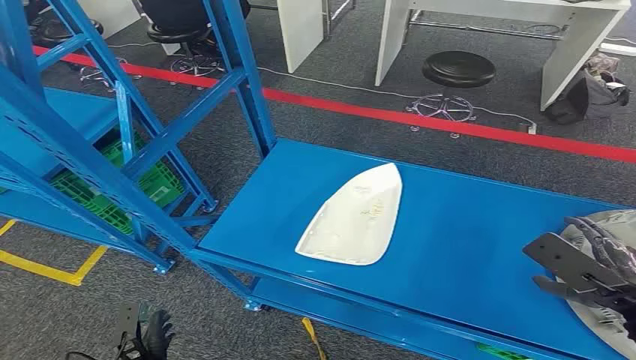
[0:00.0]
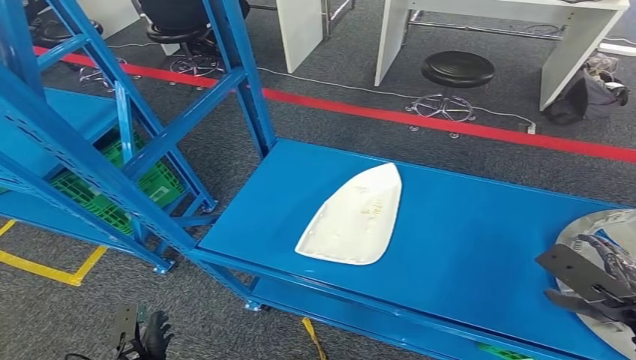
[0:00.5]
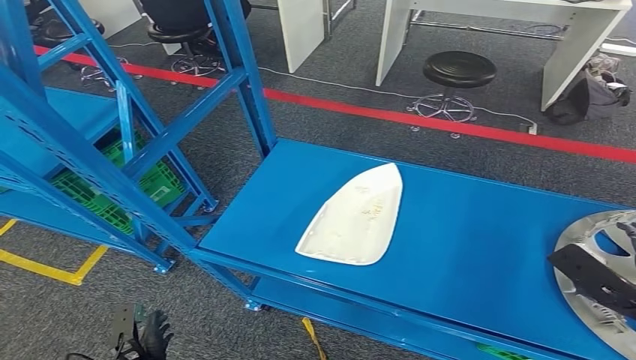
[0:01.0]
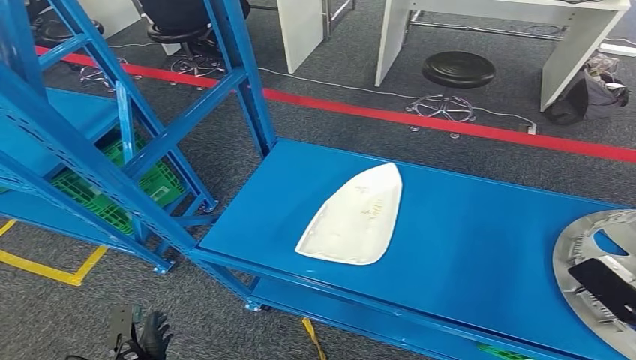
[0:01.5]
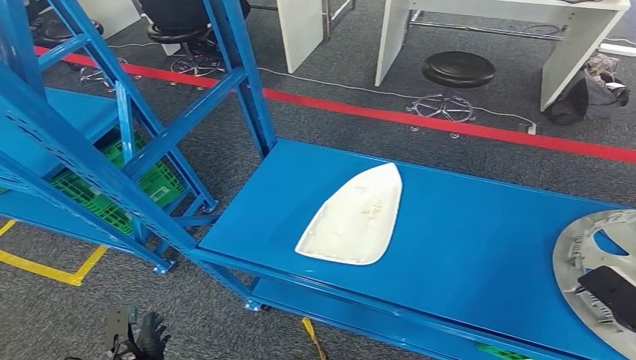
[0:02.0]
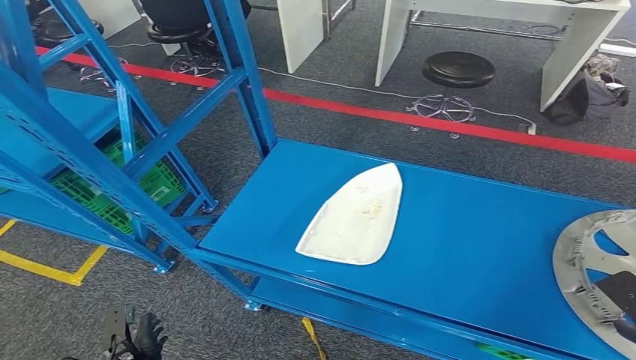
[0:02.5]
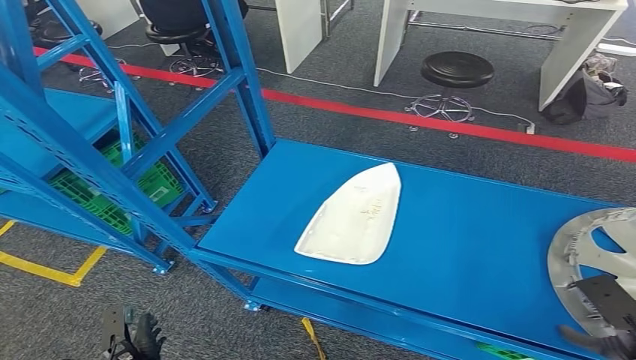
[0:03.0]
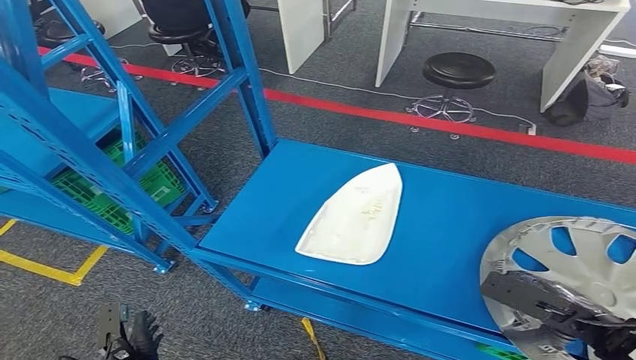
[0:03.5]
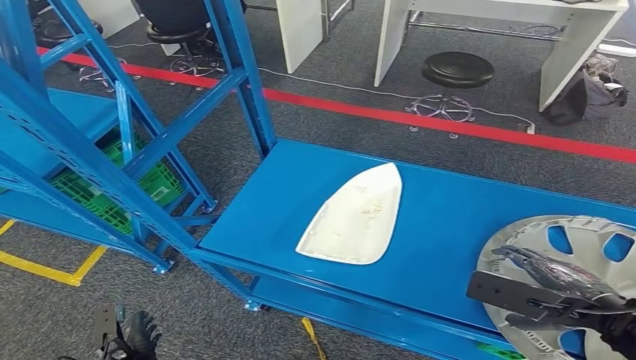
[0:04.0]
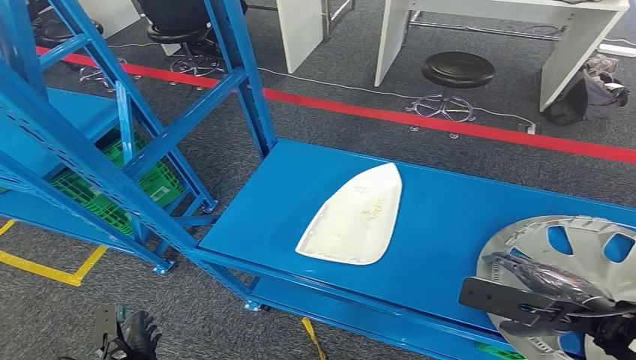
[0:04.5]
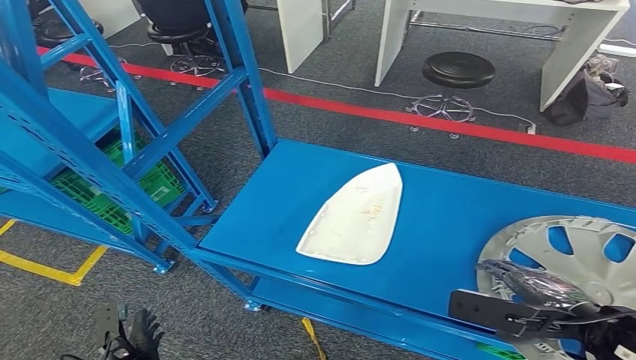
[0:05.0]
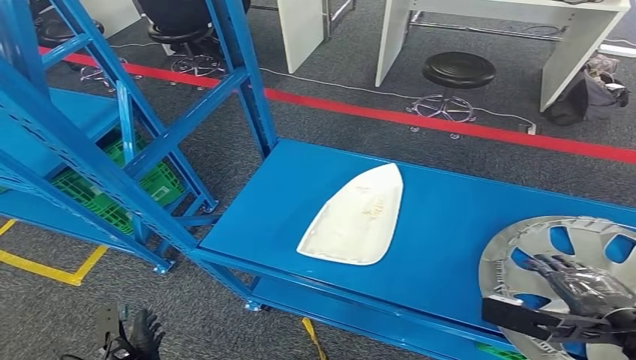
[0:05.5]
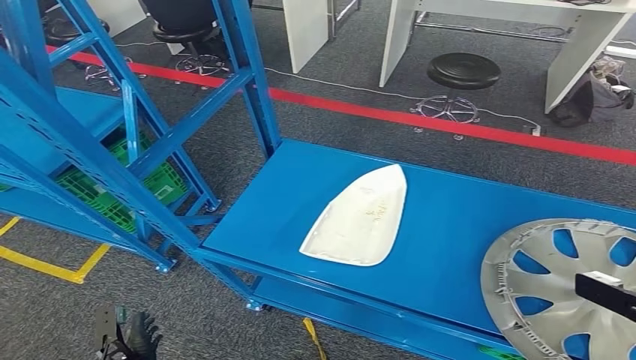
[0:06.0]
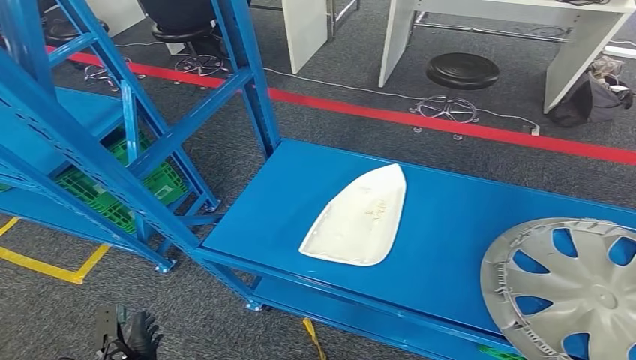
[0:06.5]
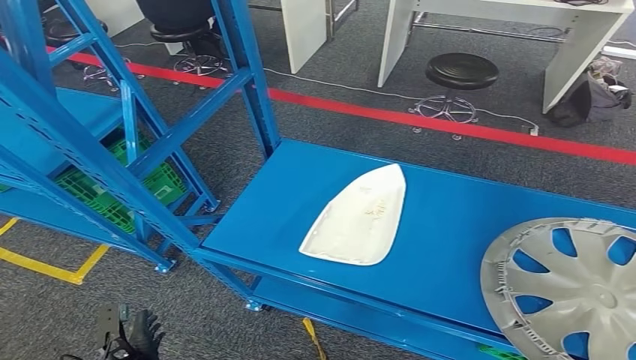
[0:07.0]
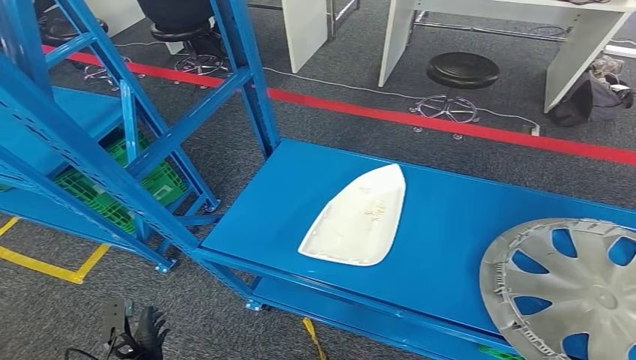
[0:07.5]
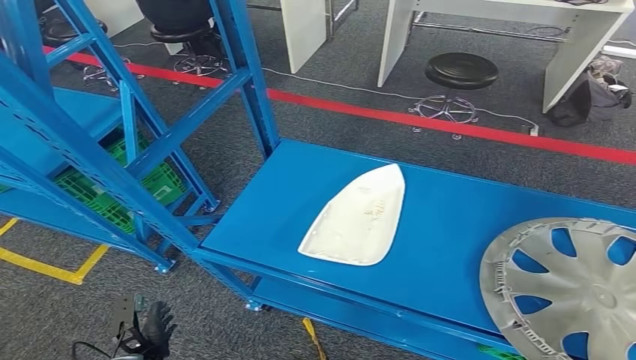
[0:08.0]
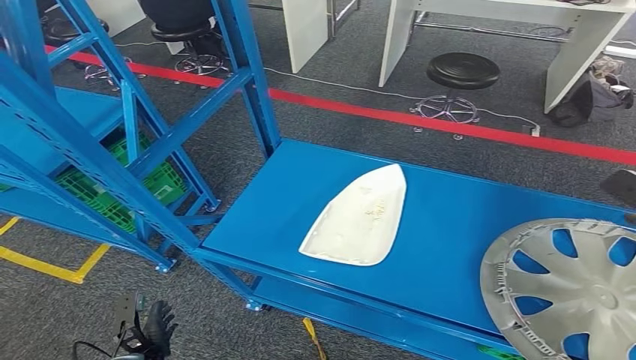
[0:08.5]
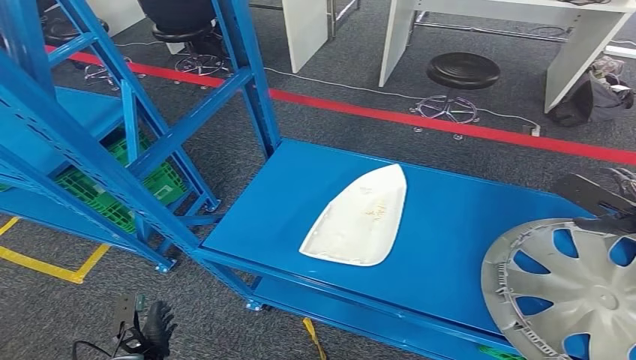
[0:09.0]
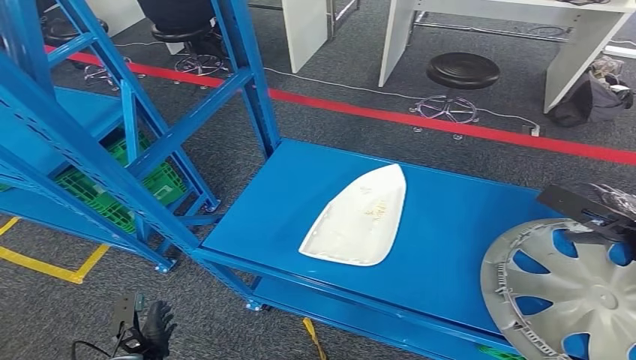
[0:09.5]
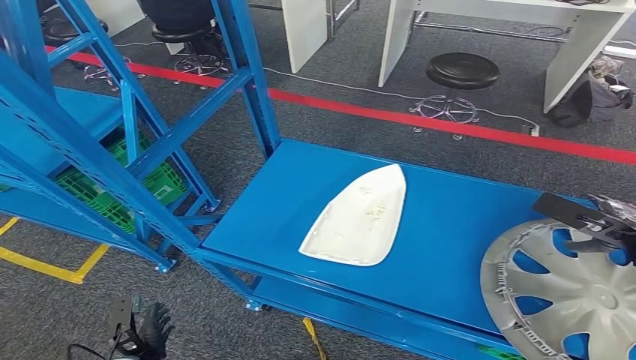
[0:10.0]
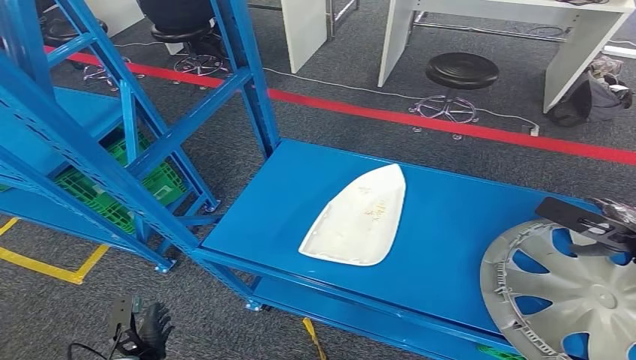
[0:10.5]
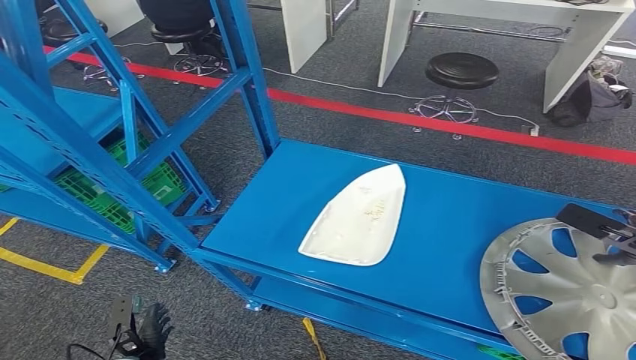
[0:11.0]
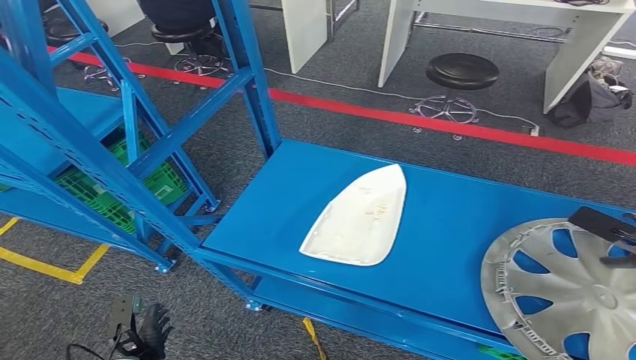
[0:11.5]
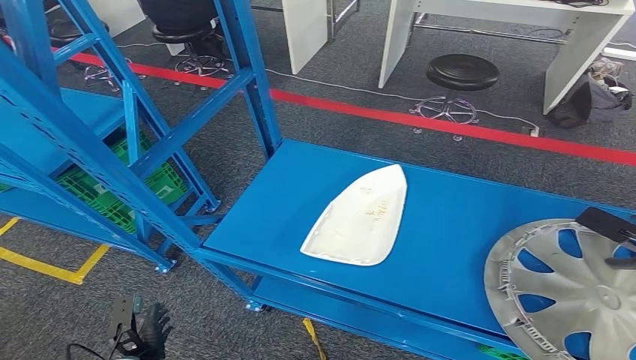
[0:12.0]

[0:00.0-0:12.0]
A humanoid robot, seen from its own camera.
0:02.0 to 0:04.0: The right hand moves to the left, about 5 cm, and reaches approximately 5 cm downward, then returns.
0:04.0 to 0:06.0: The right hand goes some 10 cm to the right.
0:06.0 to 0:08.0: The right hand is displaced forward and to the right by some 15 cm.
0:08.0 to 0:10.0: The right hand is displaced to the left and downward by approximately 15 cm.
0:10.0 to 0:12.0: The right hand goes about 5 cm to the right.

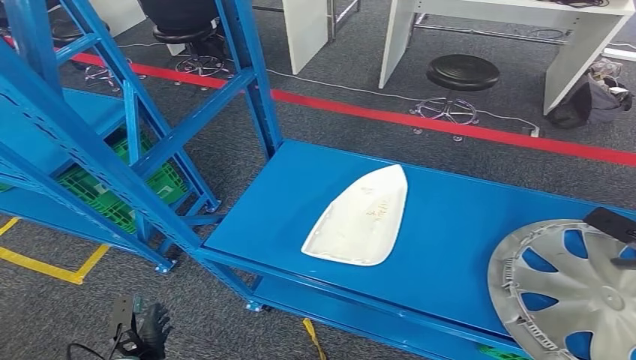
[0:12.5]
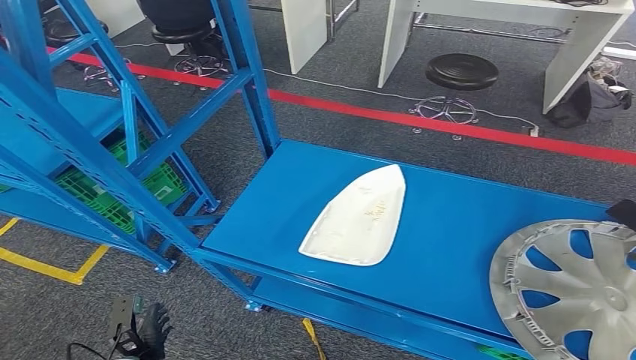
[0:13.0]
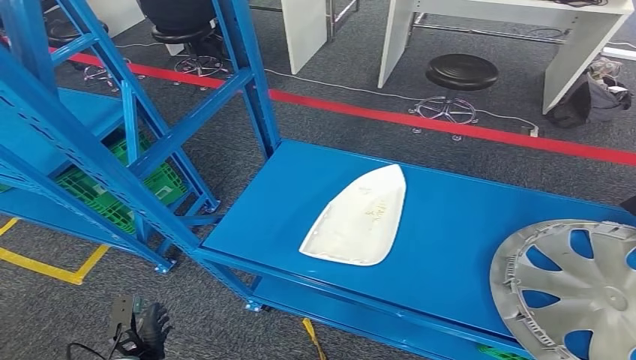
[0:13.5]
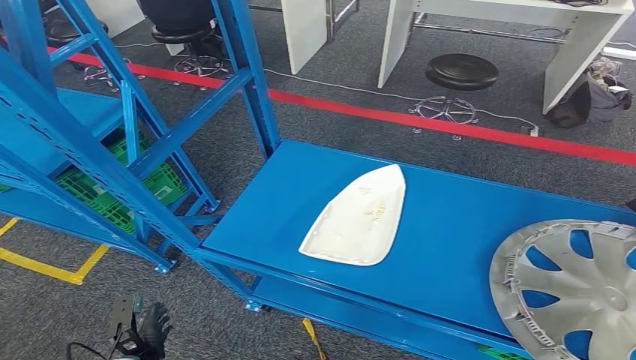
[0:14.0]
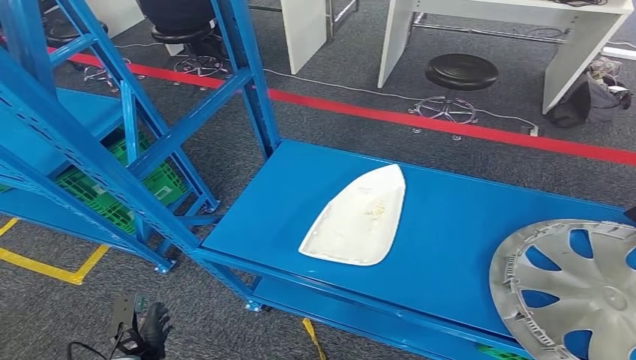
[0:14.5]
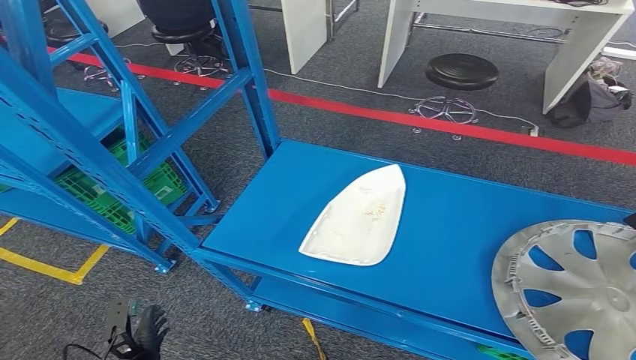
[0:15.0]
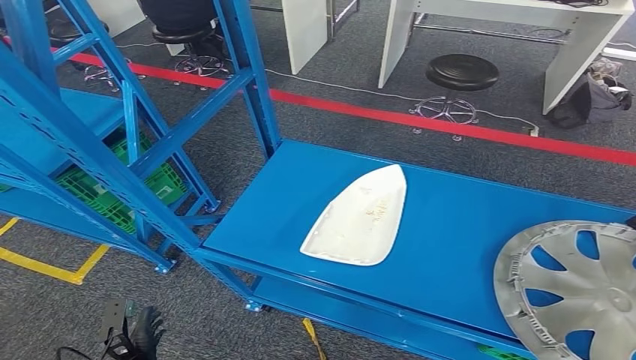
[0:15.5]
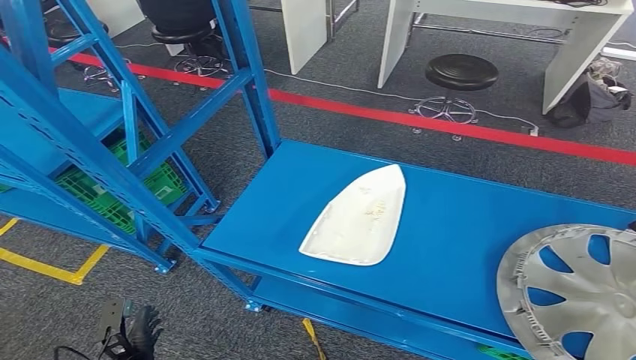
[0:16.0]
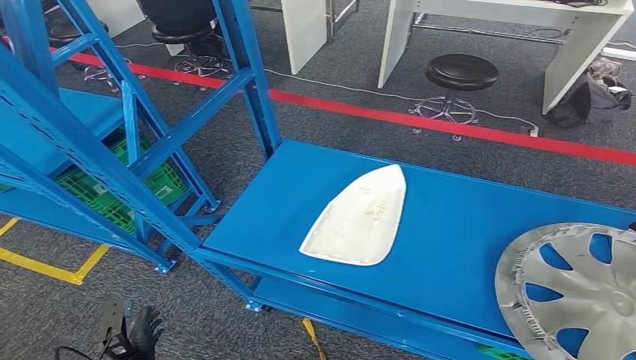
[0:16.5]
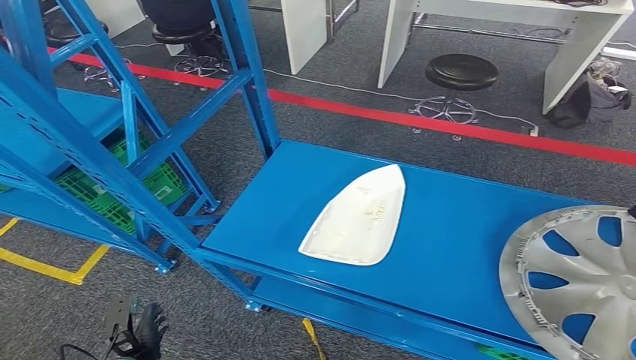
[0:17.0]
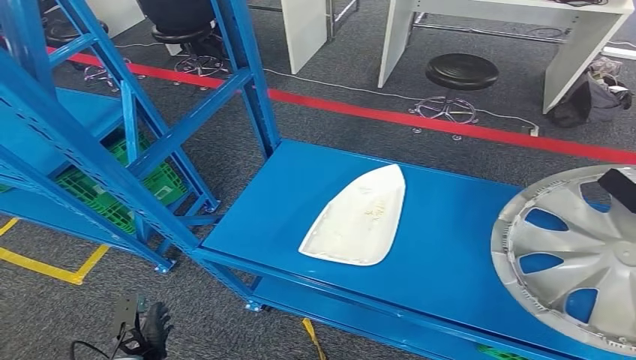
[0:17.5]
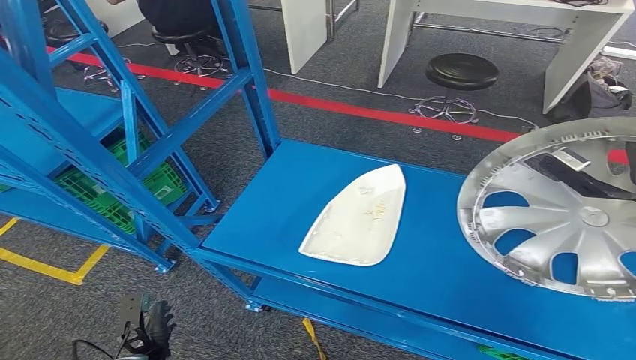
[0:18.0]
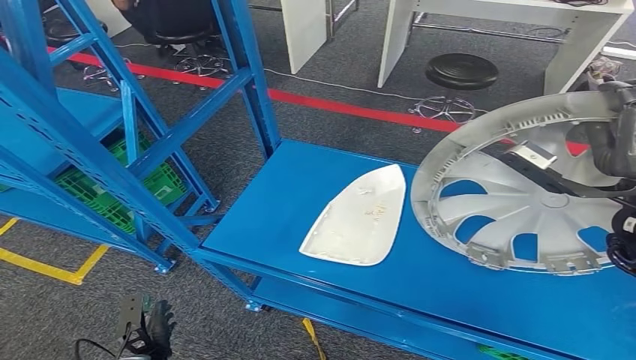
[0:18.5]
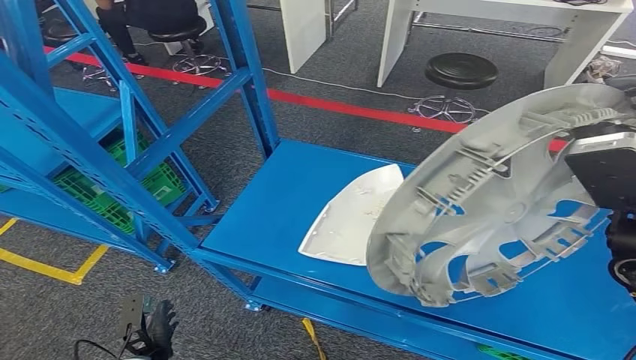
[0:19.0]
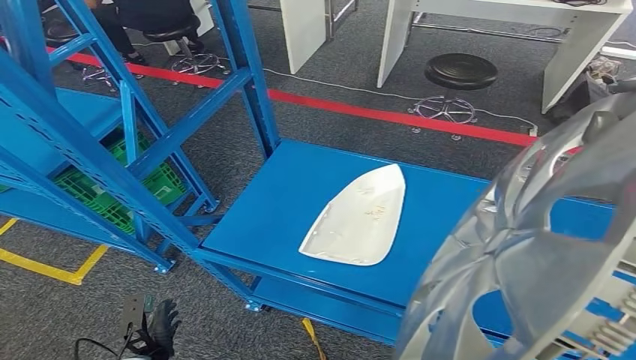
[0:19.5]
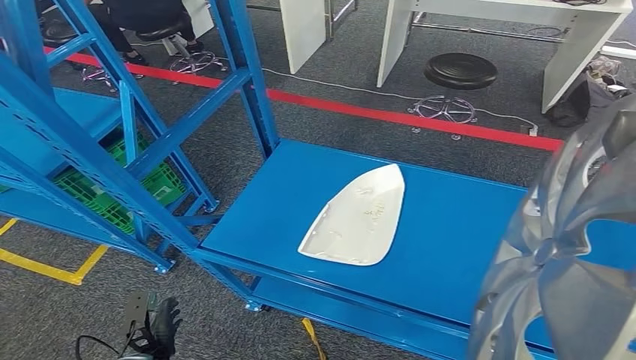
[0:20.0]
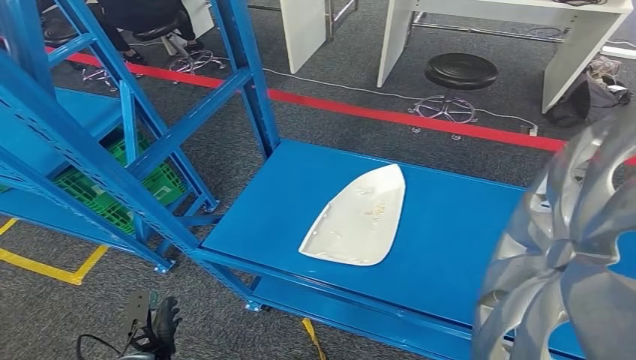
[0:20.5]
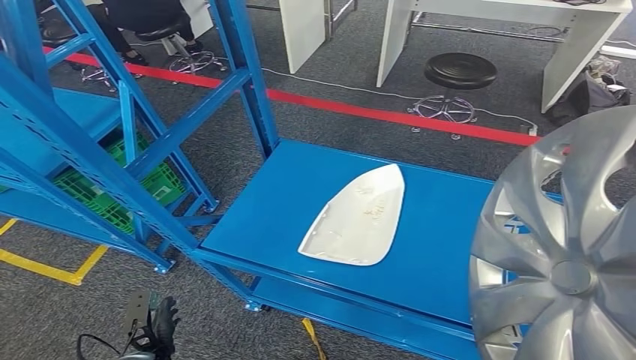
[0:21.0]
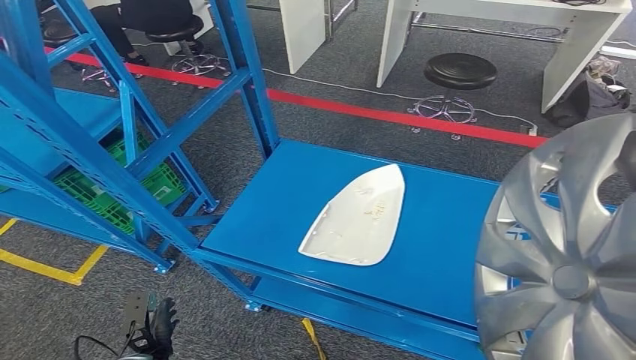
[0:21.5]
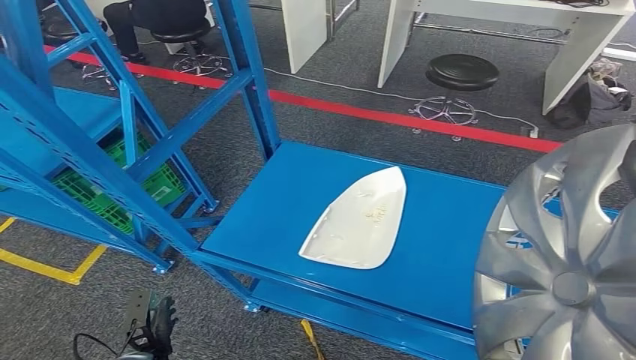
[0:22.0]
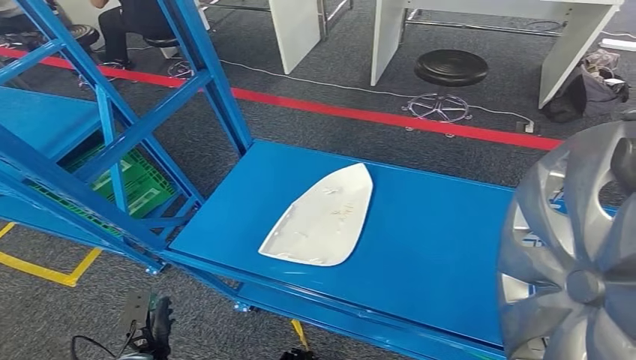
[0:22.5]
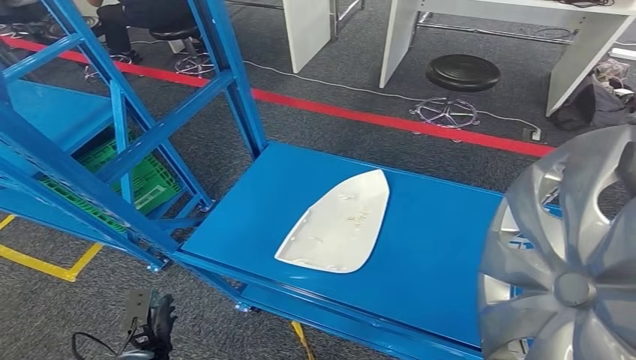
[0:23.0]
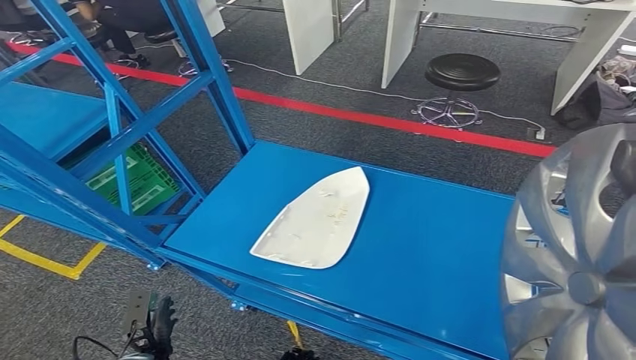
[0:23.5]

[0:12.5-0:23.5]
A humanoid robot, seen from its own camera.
Step, 0:12.5 to 0:18.5: Pick up the small component from the shelf.
0:12.5 to 0:16.0: There are only small adjustments of the hands.
0:16.0 to 0:18.0: The right hand heads to the left and upward, covering some 20 cm.
0:18.0 to 0:20.0: The right hand goes some 20 cm backward, upward and to the left.
